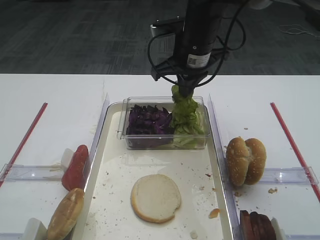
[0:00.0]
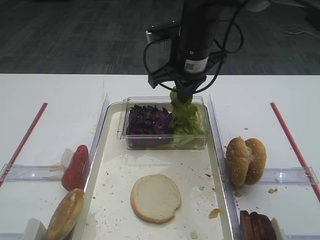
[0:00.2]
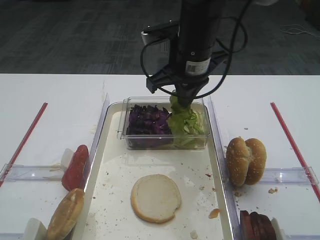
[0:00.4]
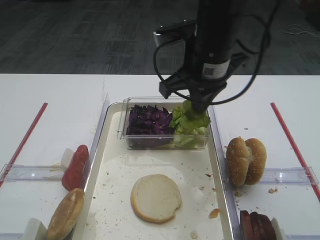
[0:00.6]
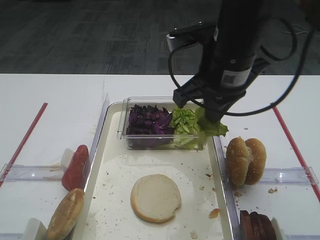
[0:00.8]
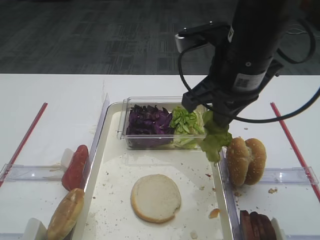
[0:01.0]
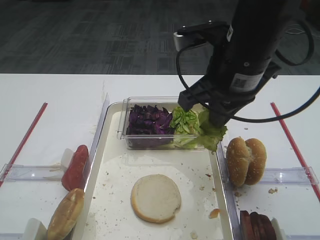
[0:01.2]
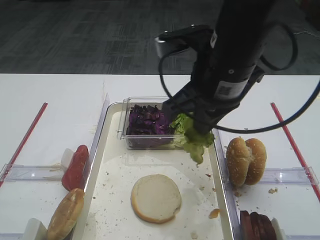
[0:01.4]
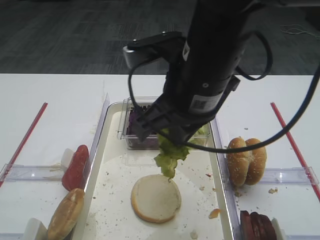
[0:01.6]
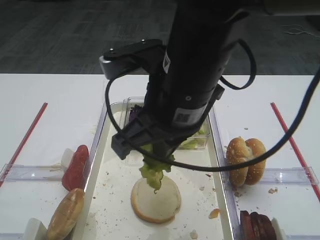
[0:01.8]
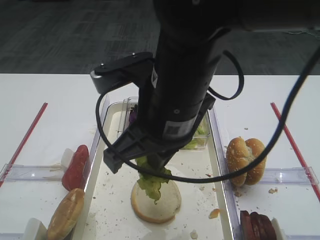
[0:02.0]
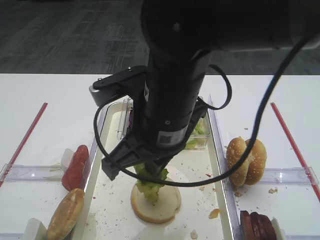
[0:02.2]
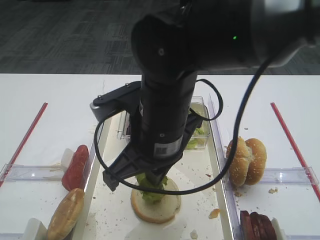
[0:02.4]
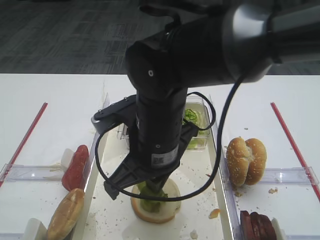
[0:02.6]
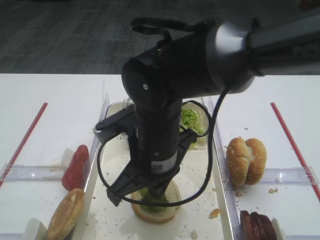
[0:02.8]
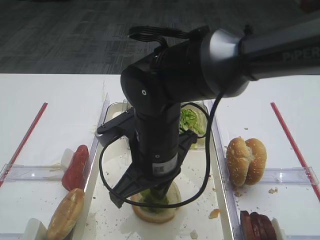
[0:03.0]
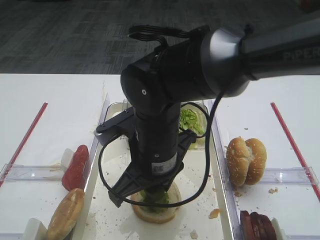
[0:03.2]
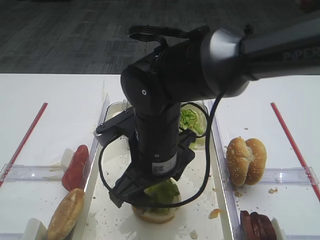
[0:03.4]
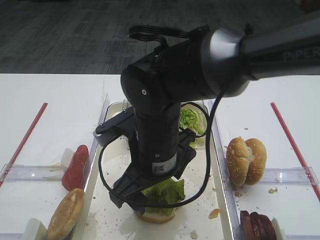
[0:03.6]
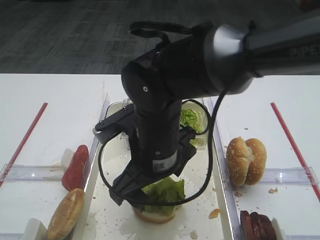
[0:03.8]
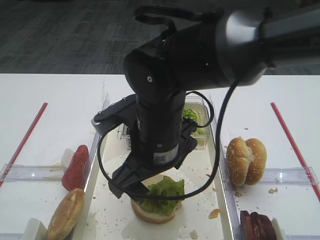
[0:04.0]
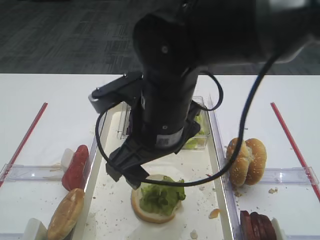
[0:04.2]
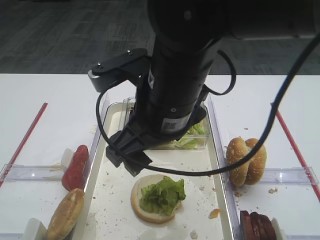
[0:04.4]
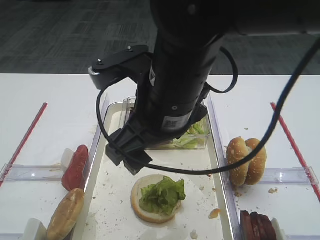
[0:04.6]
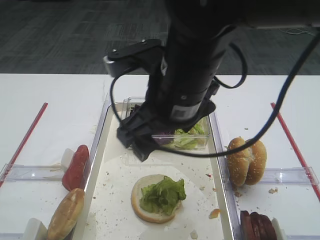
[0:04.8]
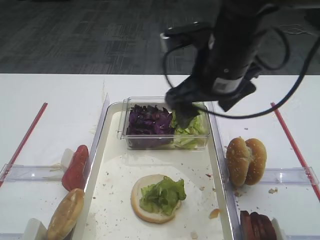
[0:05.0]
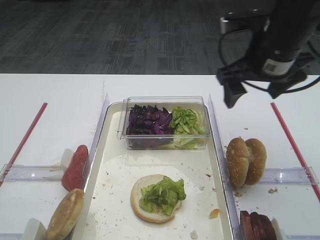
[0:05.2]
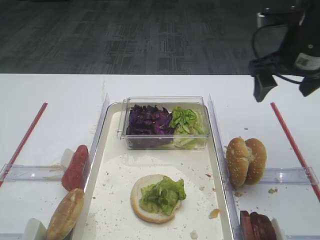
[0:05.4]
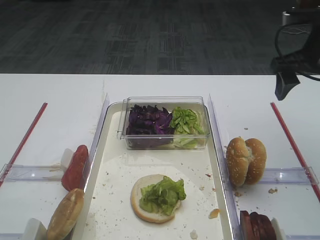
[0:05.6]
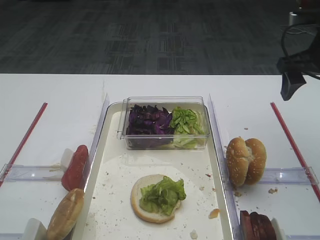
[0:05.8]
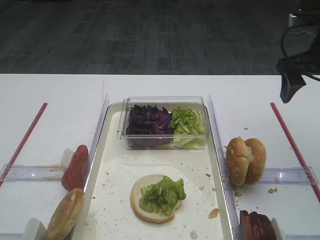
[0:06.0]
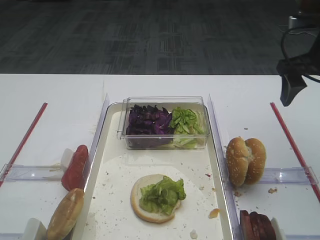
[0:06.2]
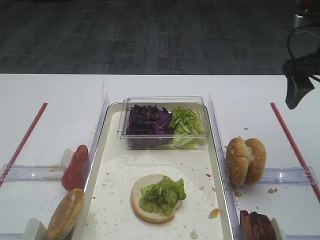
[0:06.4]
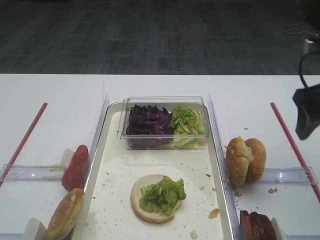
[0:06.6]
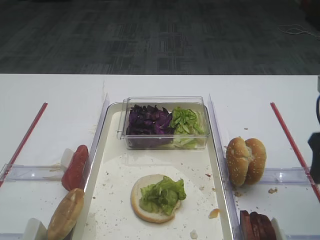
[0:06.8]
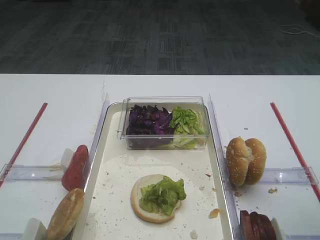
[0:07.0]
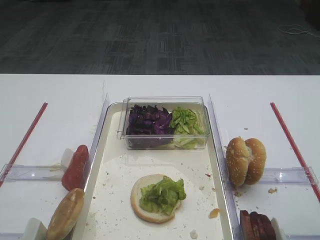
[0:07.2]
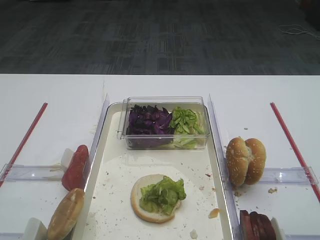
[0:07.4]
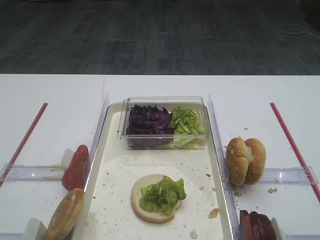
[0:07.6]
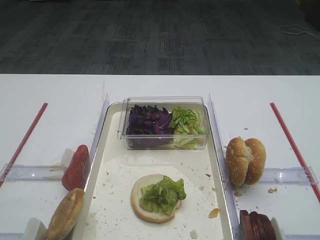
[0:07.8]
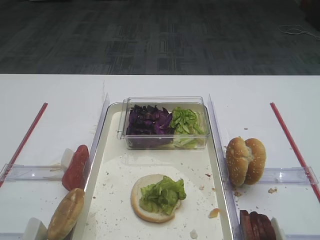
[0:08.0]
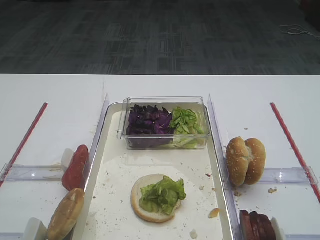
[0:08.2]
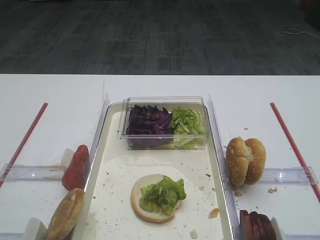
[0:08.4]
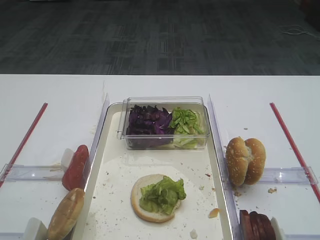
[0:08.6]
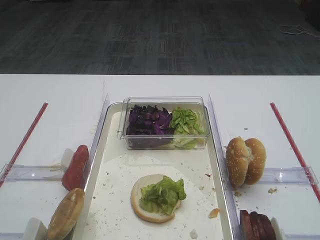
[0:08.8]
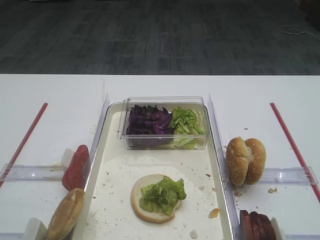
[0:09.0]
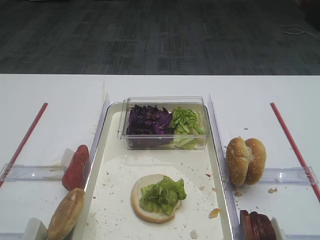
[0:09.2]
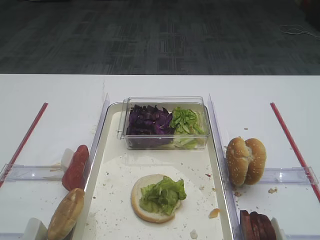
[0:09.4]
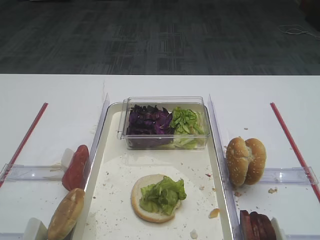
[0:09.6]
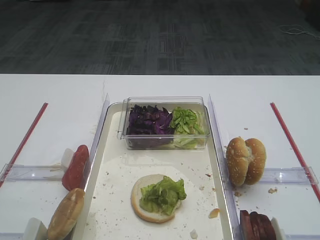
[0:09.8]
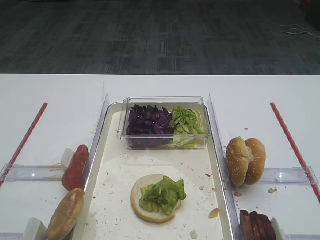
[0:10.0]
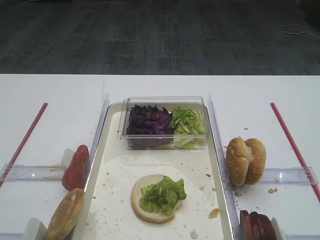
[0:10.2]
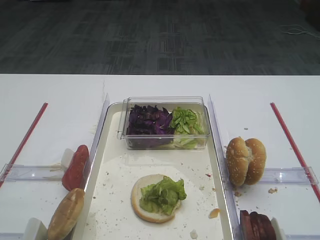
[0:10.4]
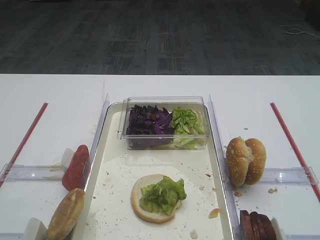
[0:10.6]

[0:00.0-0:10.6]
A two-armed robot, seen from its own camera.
Step, 0:00.0 to 0:04.0: Place the lettuce leaf on the bread slice with the right gripper.
0:00.0 to 0:01.6: The right gripper goes some 15 cm backward.
0:01.6 to 0:03.0: The right gripper travels downward and to the left by roughly 10 cm.
0:03.0 to 0:04.6: The right gripper heads upward, covering approximately 10 cm, and opens.
0:04.6 to 0:06.0: The right gripper goes roughly 30 cm to the right and forward.
0:06.0 to 0:07.6: The right gripper heads backward, covering approximately 25 cm.
0:09.0 to 0:10.6: Neither gripper changes place.

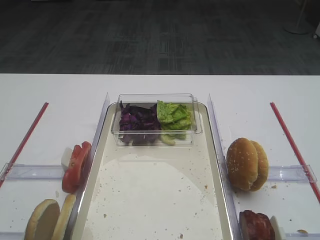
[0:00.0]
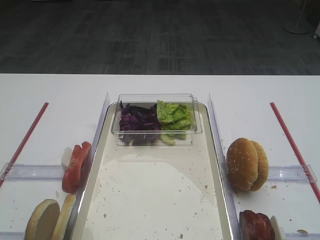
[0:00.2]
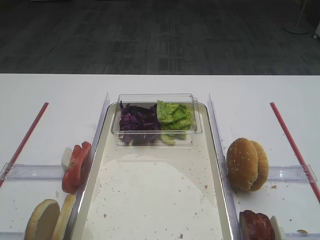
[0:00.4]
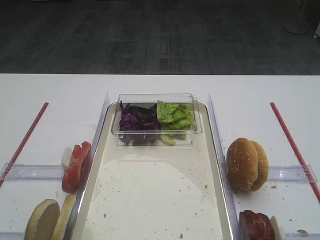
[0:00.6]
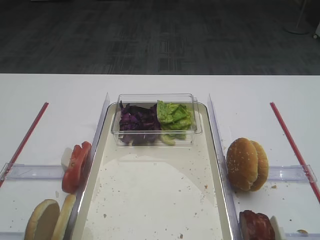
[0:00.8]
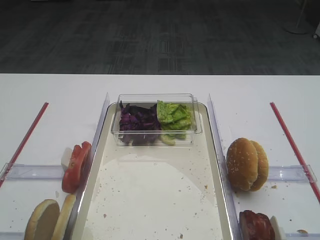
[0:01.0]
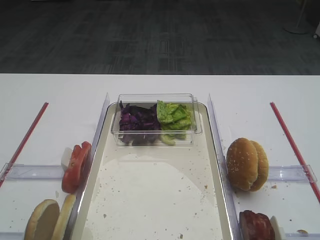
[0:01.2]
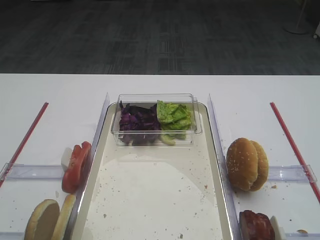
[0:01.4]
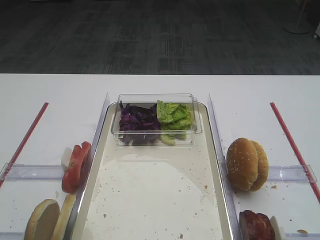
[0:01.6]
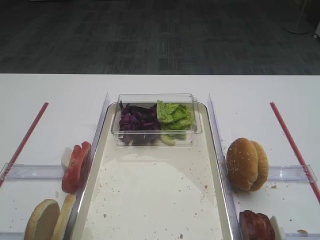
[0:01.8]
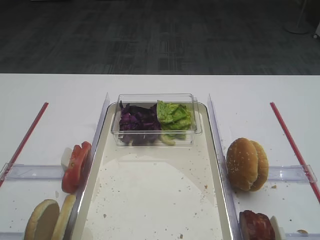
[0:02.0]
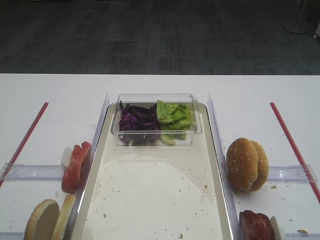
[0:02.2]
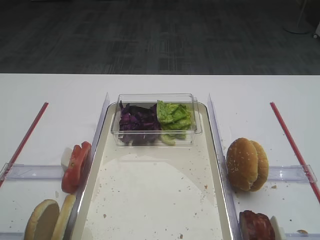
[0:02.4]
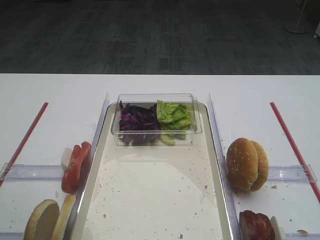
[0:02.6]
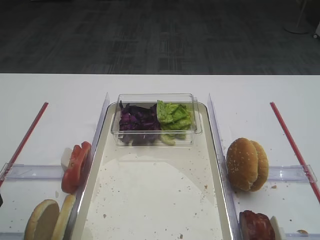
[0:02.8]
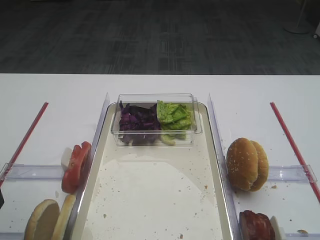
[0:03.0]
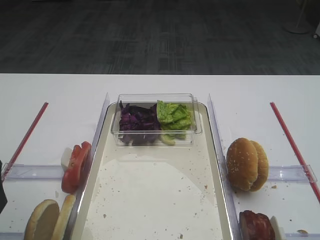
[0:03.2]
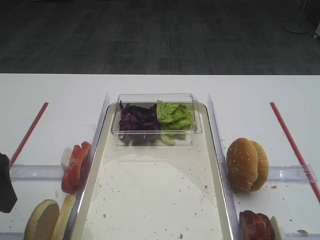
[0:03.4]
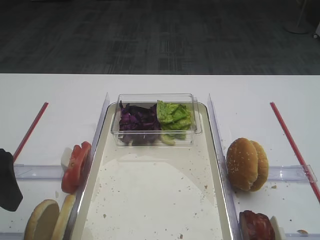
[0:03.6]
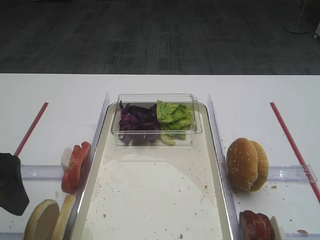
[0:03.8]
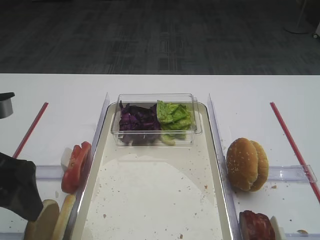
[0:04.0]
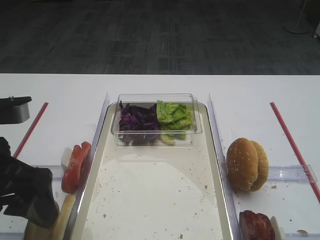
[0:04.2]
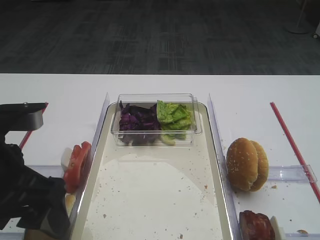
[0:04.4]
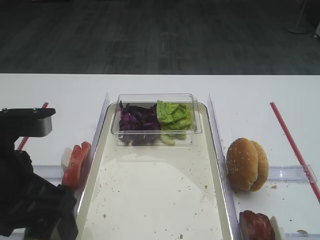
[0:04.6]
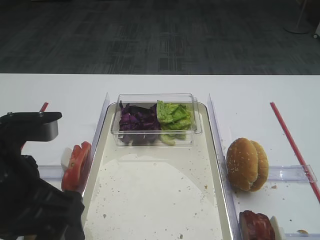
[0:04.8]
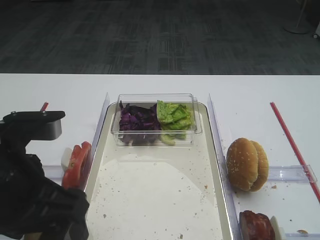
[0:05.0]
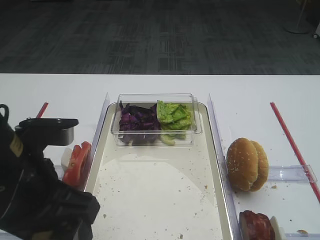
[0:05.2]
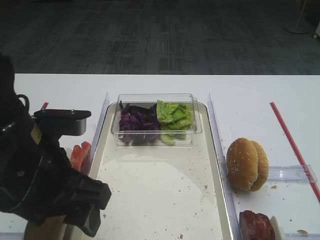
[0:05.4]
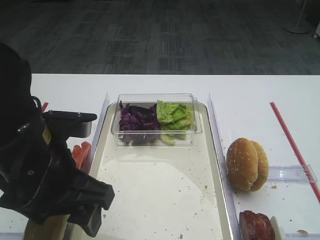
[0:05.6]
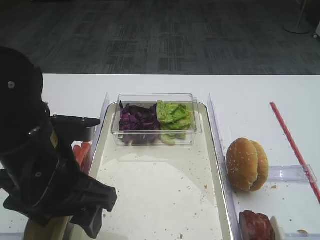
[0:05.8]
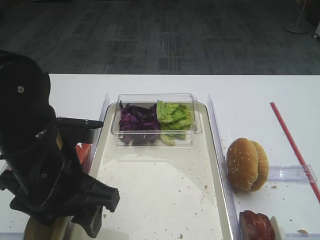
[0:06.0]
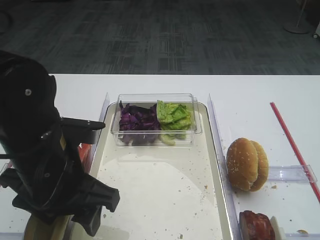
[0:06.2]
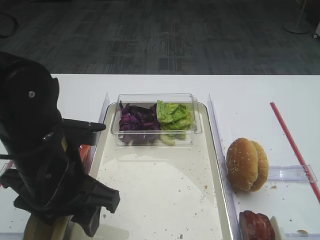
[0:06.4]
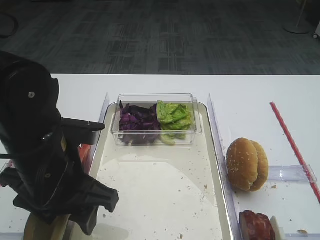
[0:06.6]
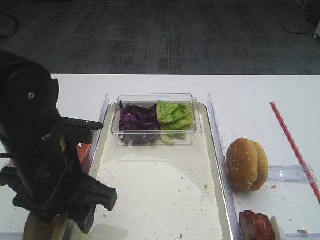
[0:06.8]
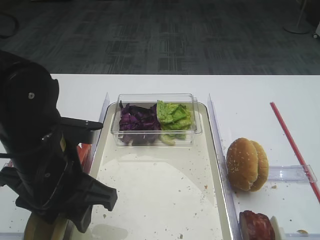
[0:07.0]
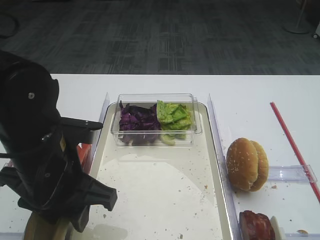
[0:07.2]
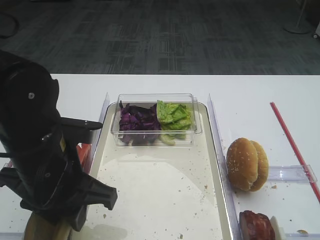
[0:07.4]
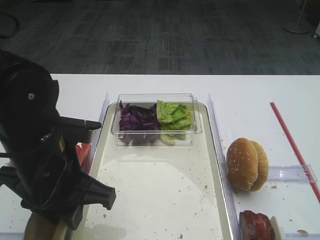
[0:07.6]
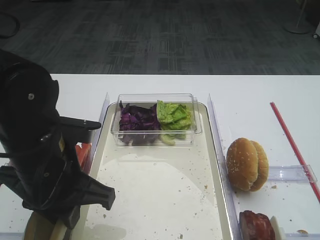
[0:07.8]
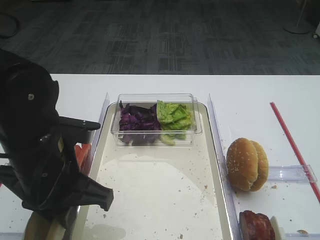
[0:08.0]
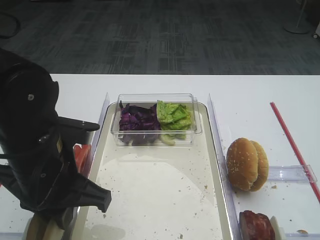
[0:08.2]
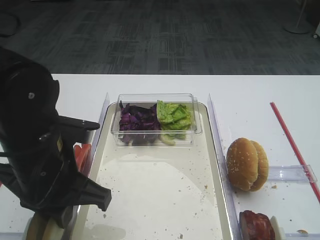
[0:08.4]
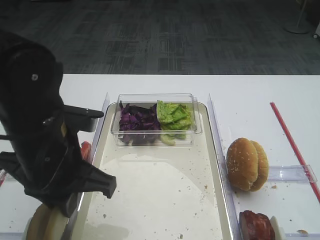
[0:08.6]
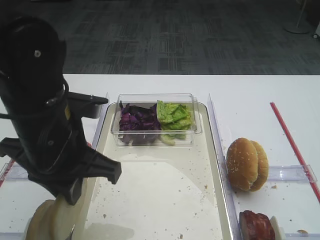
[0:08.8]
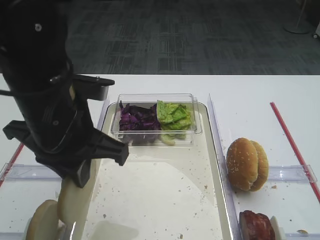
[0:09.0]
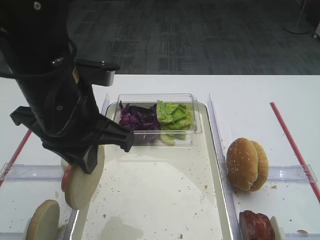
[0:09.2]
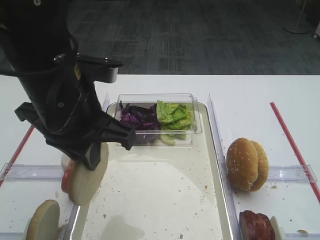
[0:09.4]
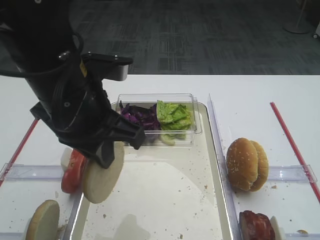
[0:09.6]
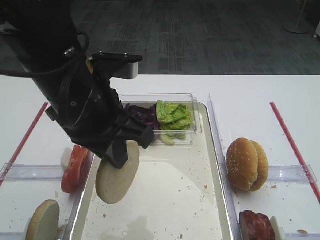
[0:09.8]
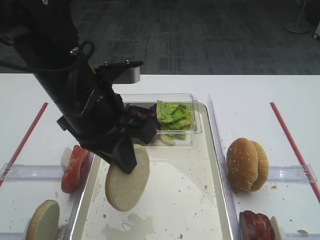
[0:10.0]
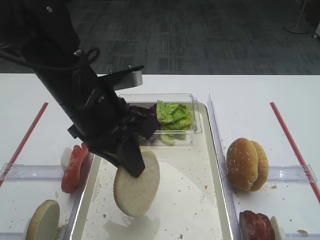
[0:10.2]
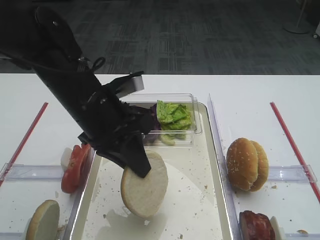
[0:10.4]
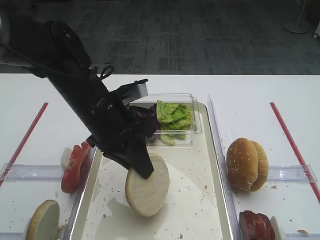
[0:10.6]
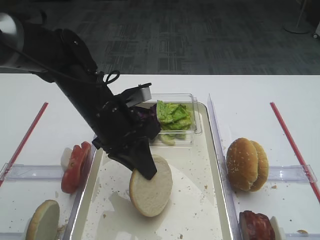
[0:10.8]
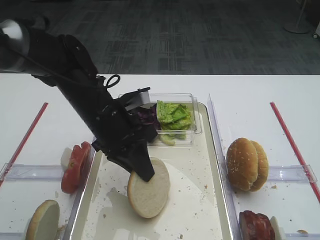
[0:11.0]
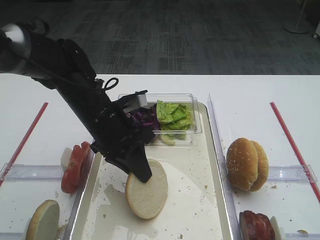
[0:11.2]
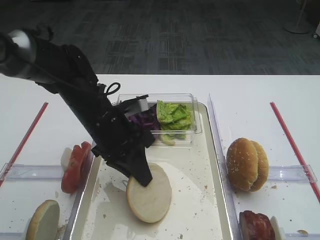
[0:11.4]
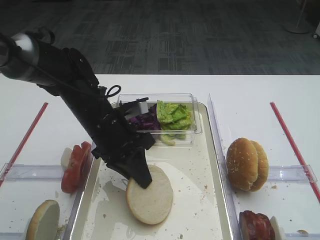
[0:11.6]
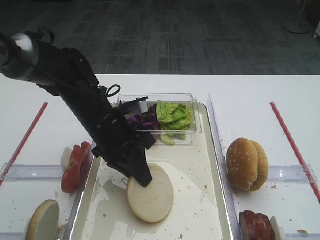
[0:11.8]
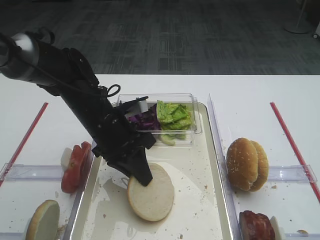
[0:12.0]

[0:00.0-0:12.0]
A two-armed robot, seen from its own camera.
Step, 0:00.0 to 0:08.8: Pick up the bread slice with the left gripper.
0:01.6 to 0:03.0: The left gripper goes roughly 15 cm forward.
0:03.0 to 0:04.4: The left gripper is displaced to the right by roughly 10 cm.
0:04.4 to 0:06.0: The left gripper travels to the right by about 5 cm.
0:06.0 to 0:07.6: The left gripper closes its fingers.
0:07.6 to 0:09.0: The left gripper goes about 5 cm upward.
0:09.0 to 0:10.4: The left gripper goes about 5 cm forward.
0:10.4 to 0:12.0: The left gripper heads downward, covering approximately 5 cm.
